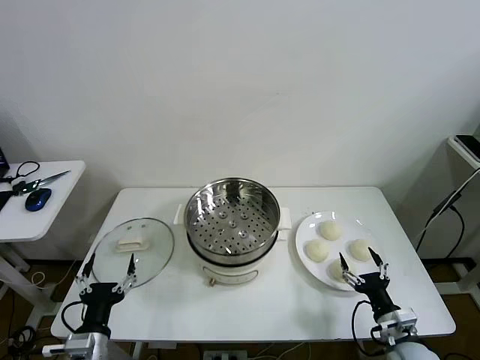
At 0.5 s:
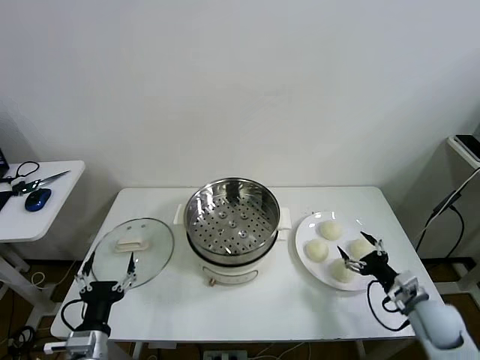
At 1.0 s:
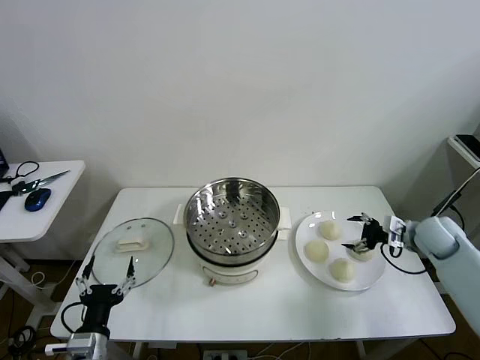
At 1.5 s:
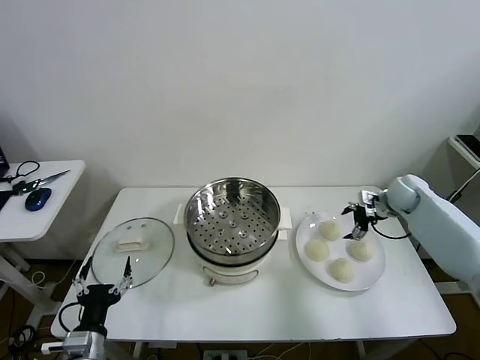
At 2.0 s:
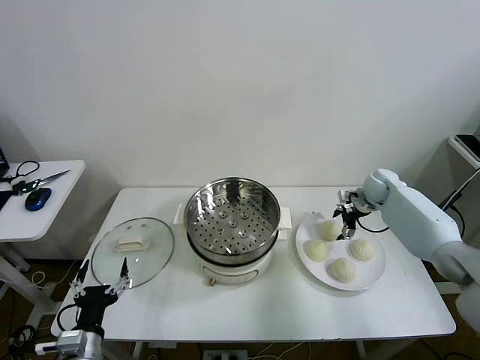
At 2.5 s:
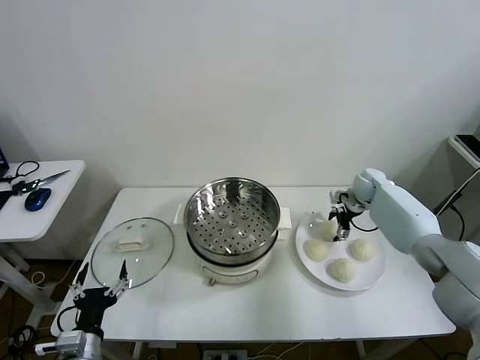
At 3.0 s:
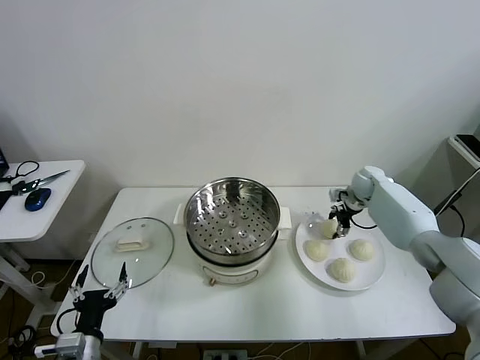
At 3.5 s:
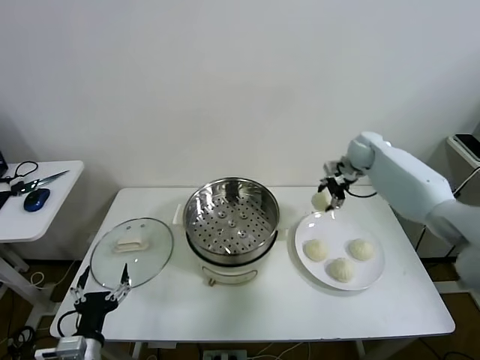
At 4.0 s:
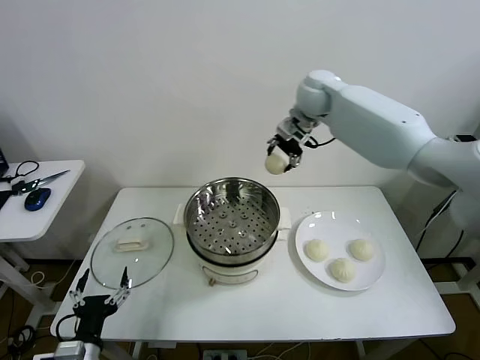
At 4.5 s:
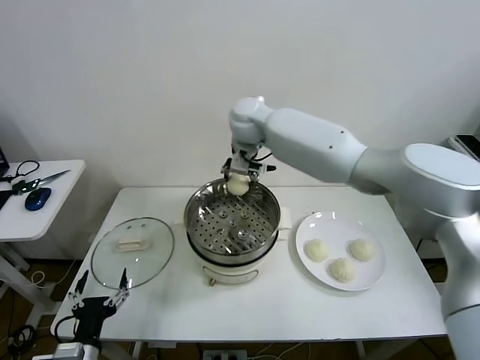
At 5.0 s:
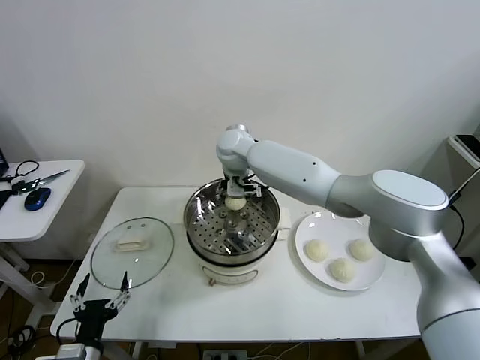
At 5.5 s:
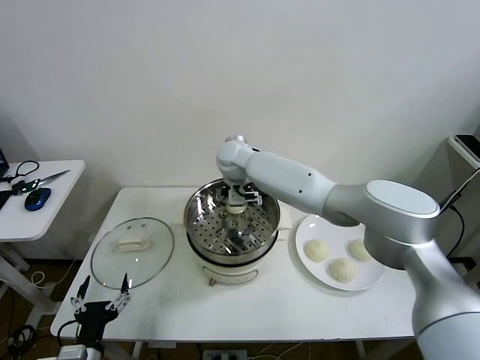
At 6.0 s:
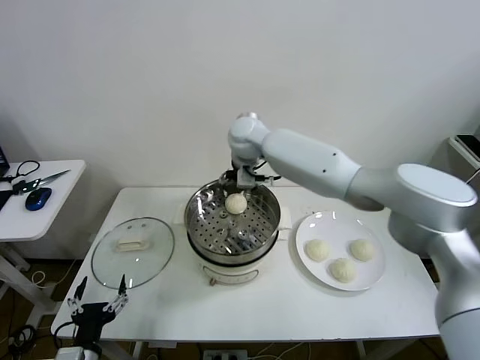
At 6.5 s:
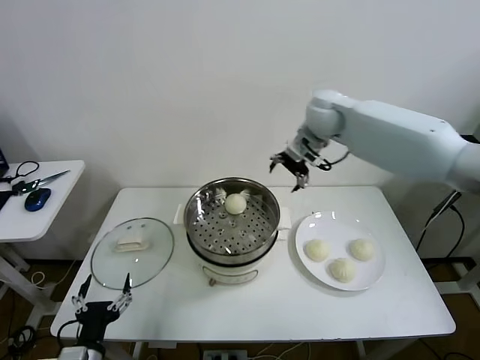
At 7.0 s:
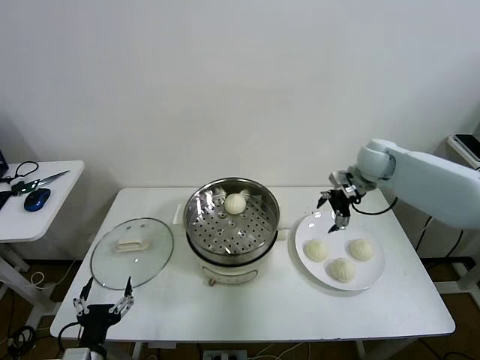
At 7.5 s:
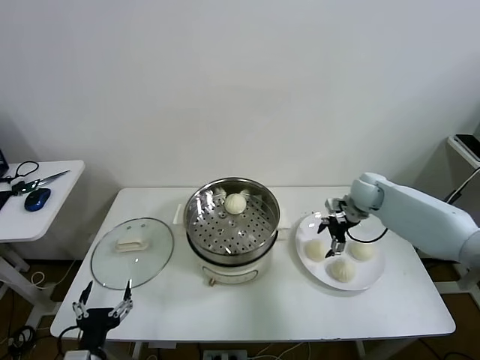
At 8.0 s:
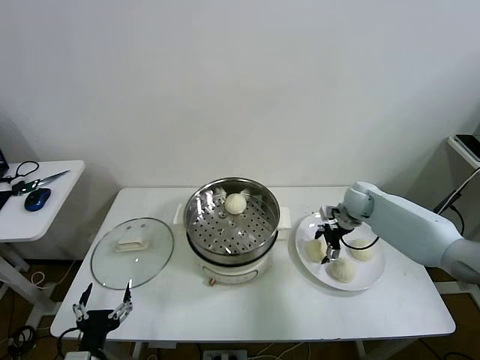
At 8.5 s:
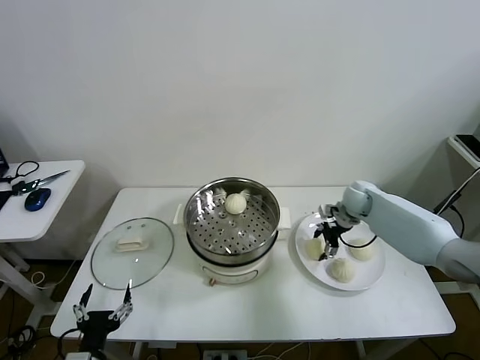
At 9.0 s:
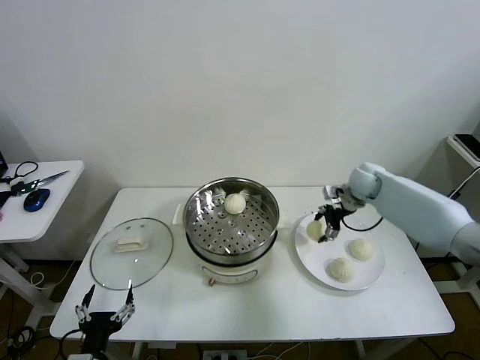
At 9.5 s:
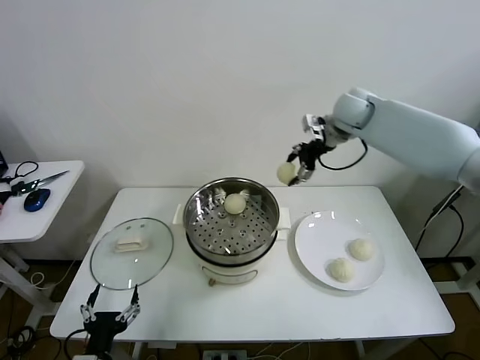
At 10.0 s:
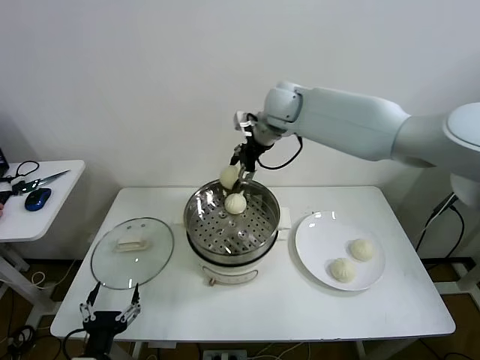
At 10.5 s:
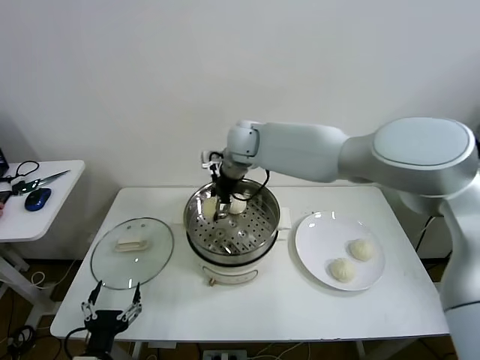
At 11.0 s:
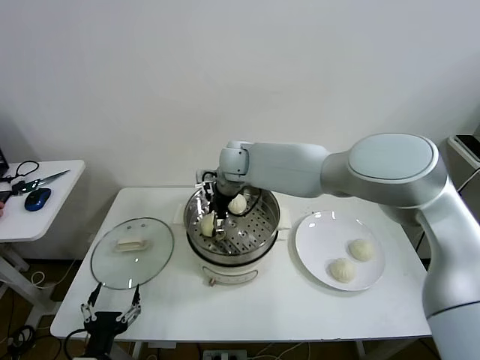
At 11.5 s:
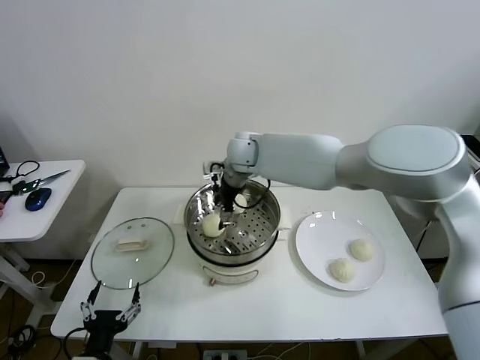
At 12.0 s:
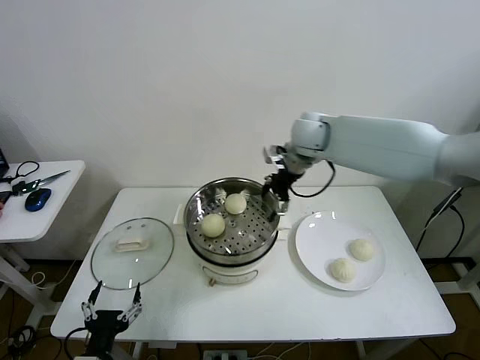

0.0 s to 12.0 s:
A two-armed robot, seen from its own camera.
Task of the whole recording: take steamed baozi put them in steamer then cover it.
Step, 0.0 to 2.5 s: Grasp the baozi in the plate with right gripper.
Step, 3.0 to 5.5 s: Place the baozi on the steamer with right gripper.
Step, 6.0 to 8.5 s: Grasp the baozi in the plate with right gripper.
Step, 9.0 to 11.0 s: Place the baozi on the steamer with right gripper.
2.0 to 4.0 s: The right gripper shifts roughly 40 cm upward and to the left, and closes up.
4.0 to 6.0 s: The right gripper travels to the left and downward by some 10 cm, and opens its fingers.
6.0 to 8.0 s: The right gripper shifts approximately 35 cm to the right and downward.
8.0 to 10.0 s: The right gripper travels upward and to the left by some 35 cm, and closes up.
10.0 to 12.0 s: The right gripper heads to the right, covering some 10 cm, and opens up.

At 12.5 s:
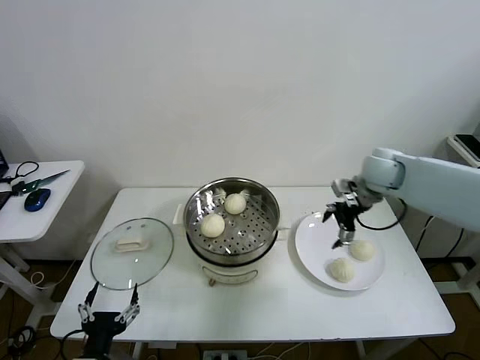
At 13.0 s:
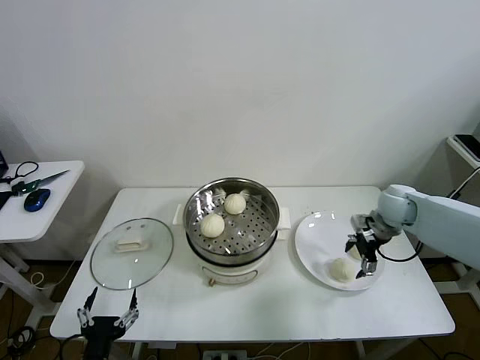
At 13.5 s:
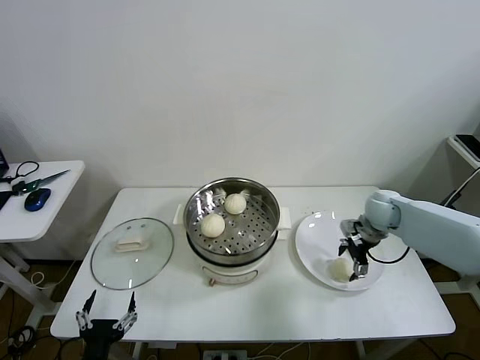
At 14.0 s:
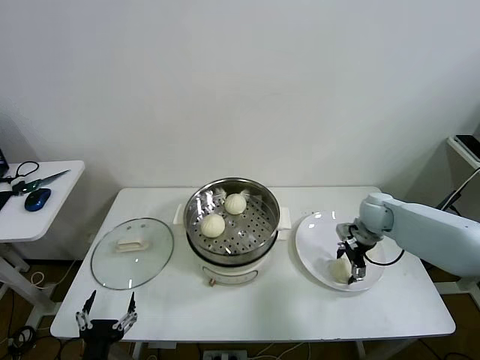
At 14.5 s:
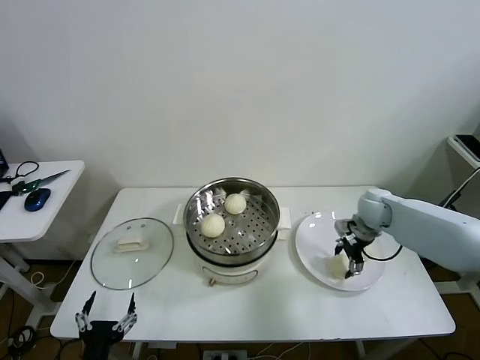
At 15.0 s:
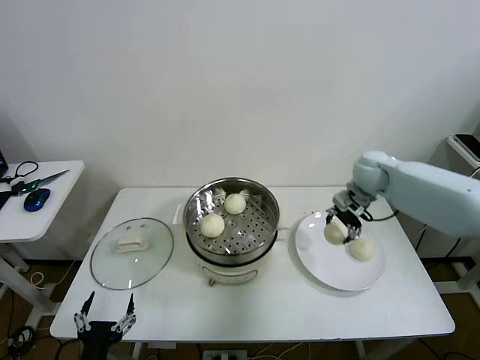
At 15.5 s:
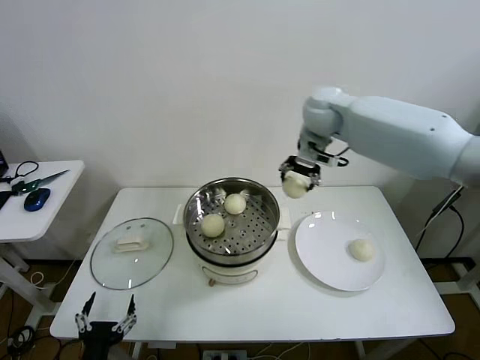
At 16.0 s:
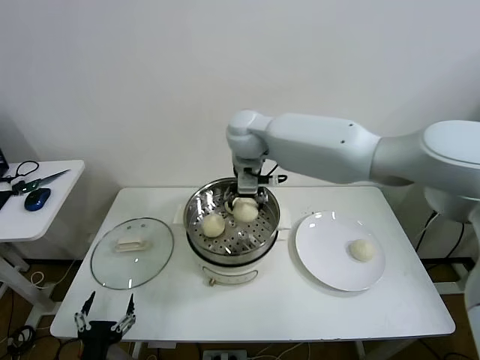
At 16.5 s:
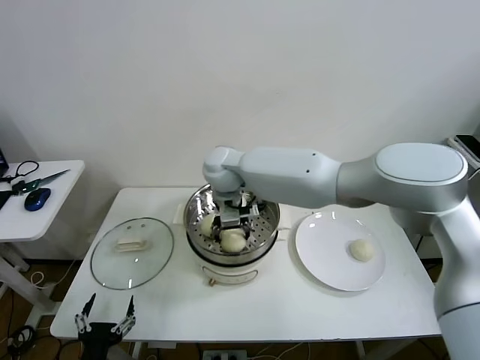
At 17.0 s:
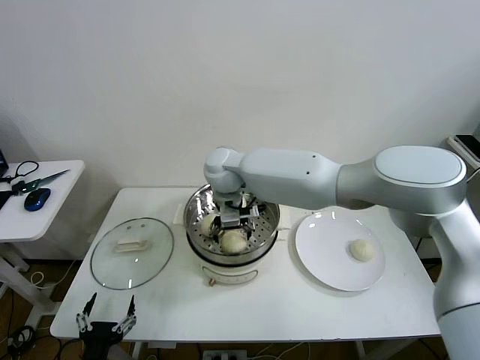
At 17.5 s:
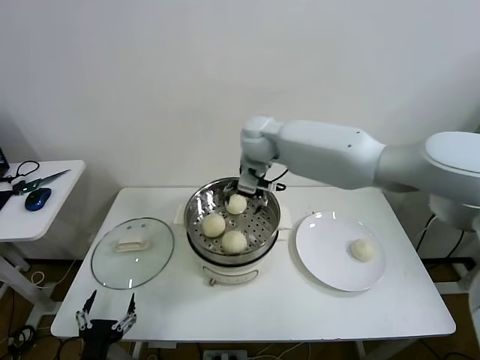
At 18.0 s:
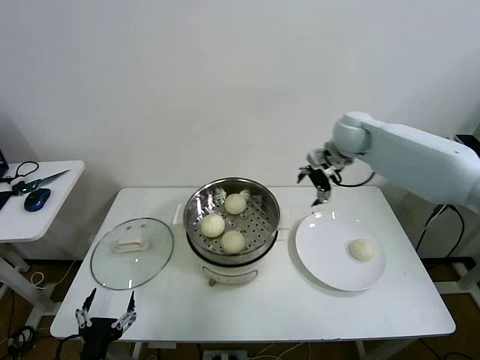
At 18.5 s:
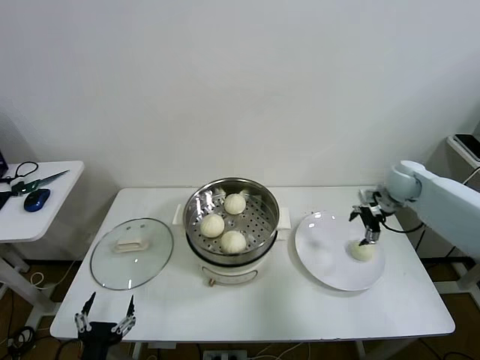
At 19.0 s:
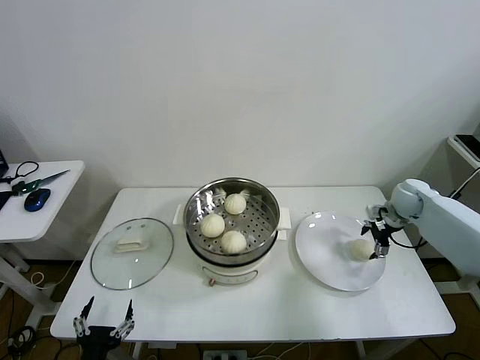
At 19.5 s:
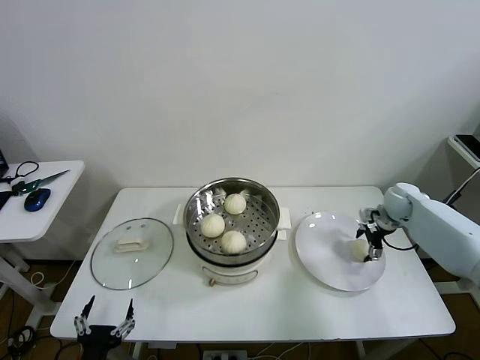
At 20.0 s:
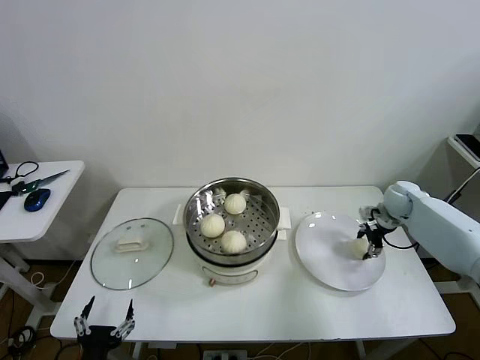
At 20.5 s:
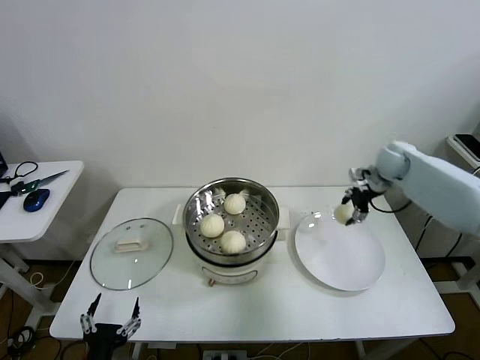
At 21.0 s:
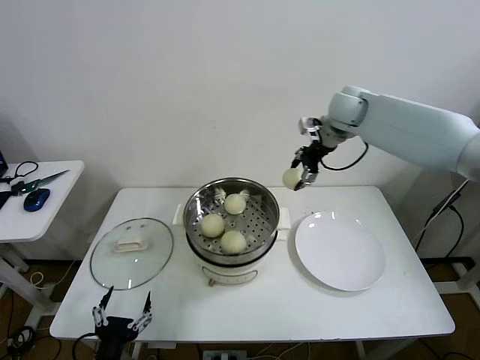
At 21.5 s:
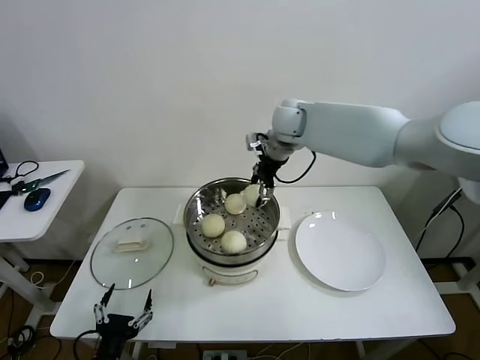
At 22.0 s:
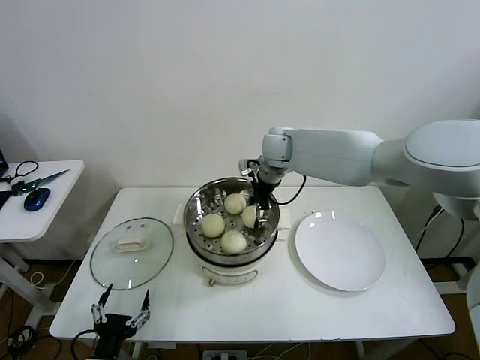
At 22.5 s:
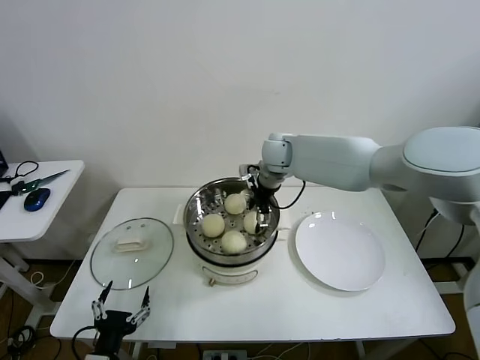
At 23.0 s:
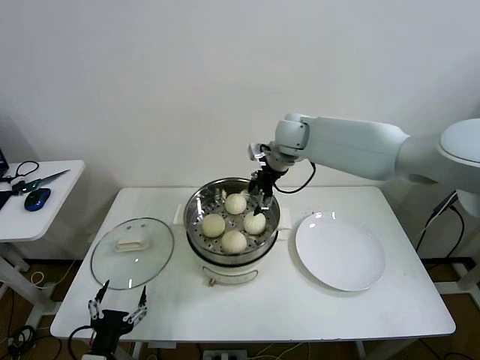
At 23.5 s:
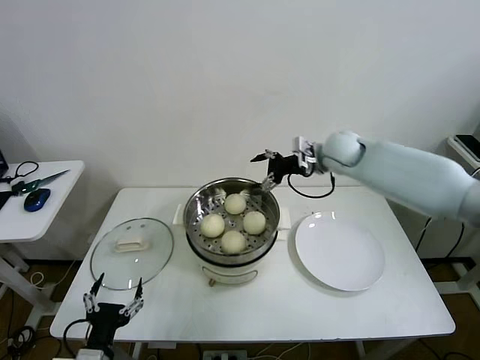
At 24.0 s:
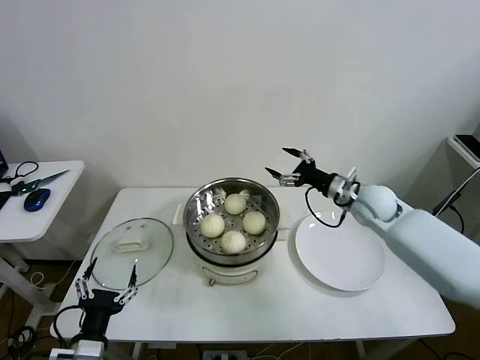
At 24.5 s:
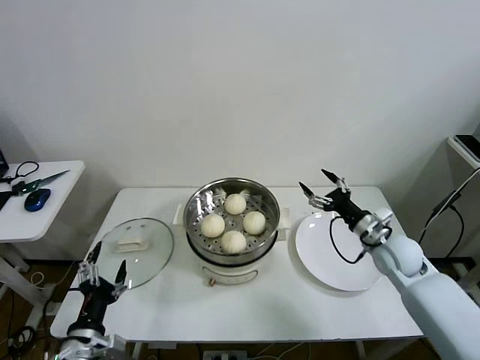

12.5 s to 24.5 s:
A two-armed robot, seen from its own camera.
Task of the whole recording: take steamed baozi put them in steamer then cover it.
Step, 12.5 to 14.0 s: Grasp the baozi in the plate with right gripper.
Step, 14.5 to 17.0 s: Place the baozi on the steamer with right gripper.
Step, 17.5 to 19.5 s: Grasp the baozi in the plate with right gripper.
Step, 20.0 to 22.5 s: Place the baozi on the steamer with right gripper.
12.5 to 14.5 s: The right gripper is displaced downward by approximately 10 cm, and closes.
14.5 to 16.5 s: The right gripper goes about 40 cm to the left.
16.5 to 18.5 s: The right gripper is displaced to the right by roughly 50 cm, and opens its fingers.
18.5 to 20.5 s: The right gripper moves about 10 cm downward and comes back, and closes its fingers.
20.5 to 22.5 s: The right gripper shifts about 30 cm to the left, and opens its fingers.
22.5 to 24.5 s: The right gripper goes some 35 cm to the right, backward and downward. The left gripper changes place by some 5 cm.

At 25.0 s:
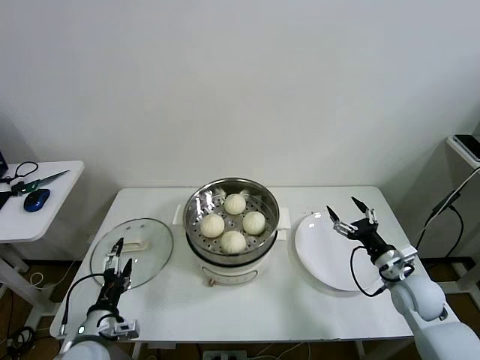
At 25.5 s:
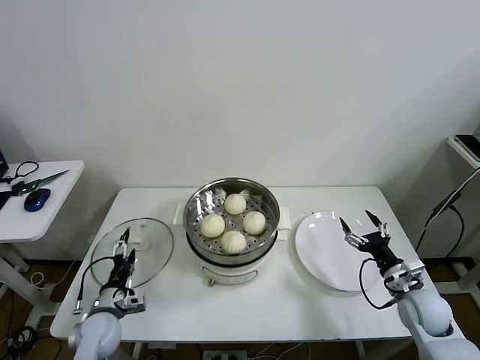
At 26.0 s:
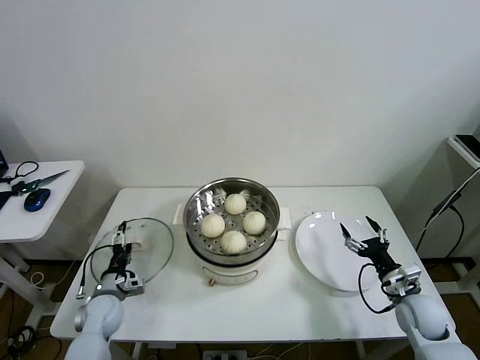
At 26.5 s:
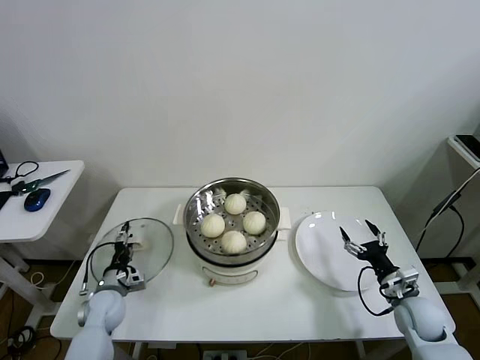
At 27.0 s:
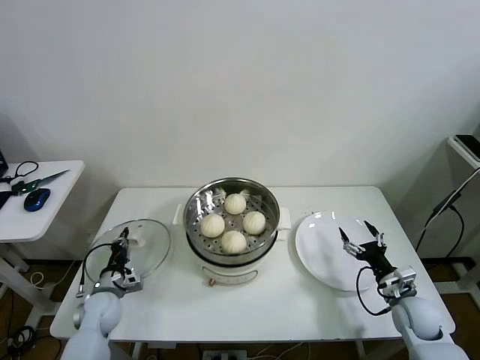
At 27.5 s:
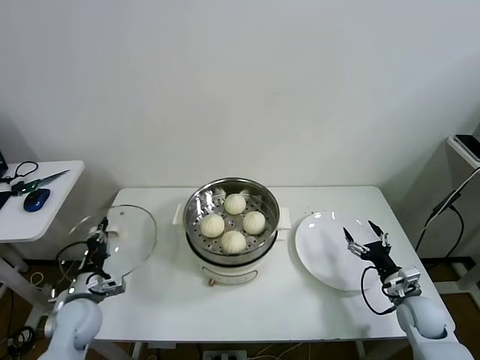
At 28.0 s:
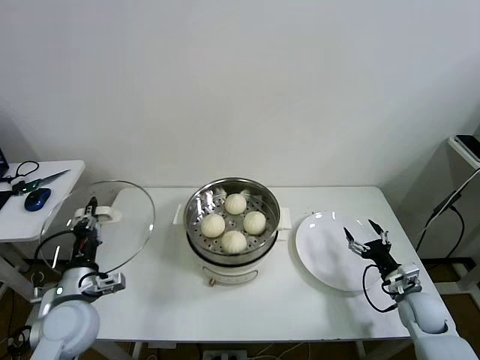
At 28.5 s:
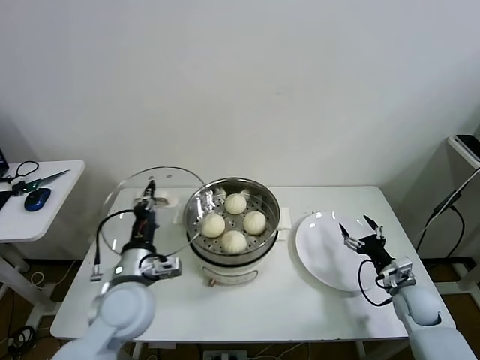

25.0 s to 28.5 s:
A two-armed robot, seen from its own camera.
Task of the whole recording: take steamed baozi put them in steamer then cover it.
25.0 to 27.0 s: The right gripper goes about 5 cm downward. Meanwhile the left gripper travels forward and downward by about 15 cm, and closes up.
27.0 to 28.5 s: The left gripper shifts roughly 25 cm upward and to the right.
